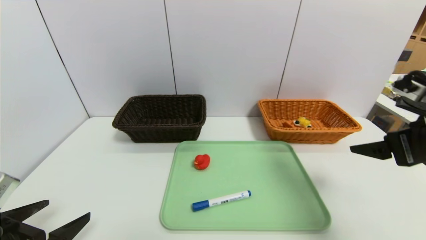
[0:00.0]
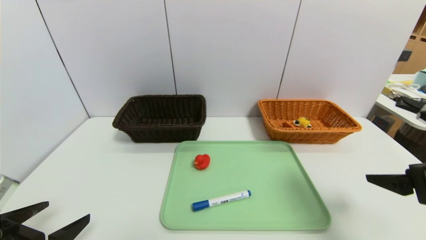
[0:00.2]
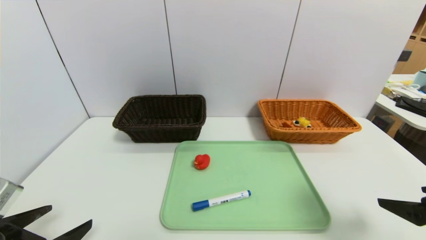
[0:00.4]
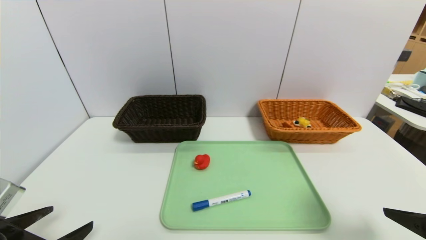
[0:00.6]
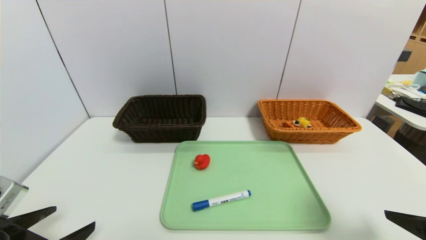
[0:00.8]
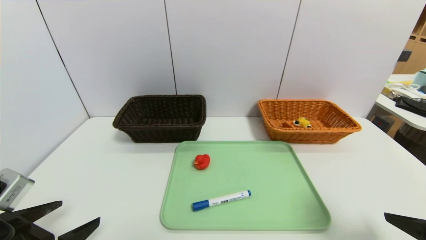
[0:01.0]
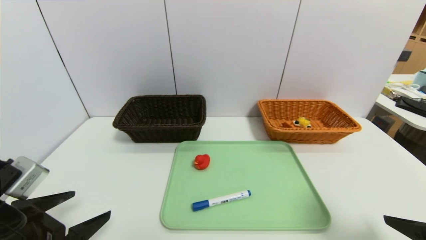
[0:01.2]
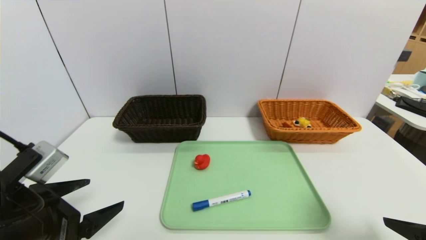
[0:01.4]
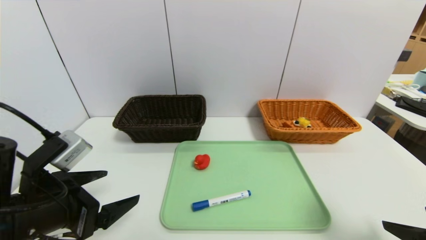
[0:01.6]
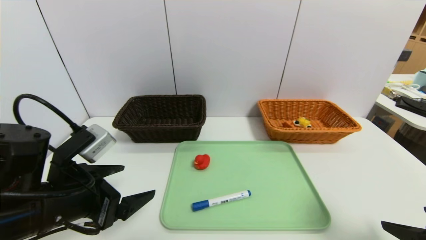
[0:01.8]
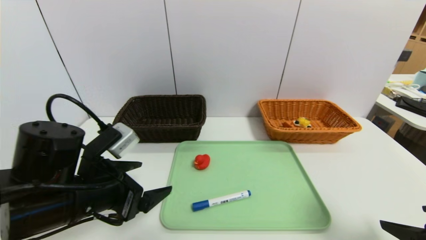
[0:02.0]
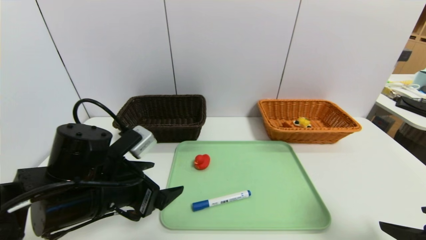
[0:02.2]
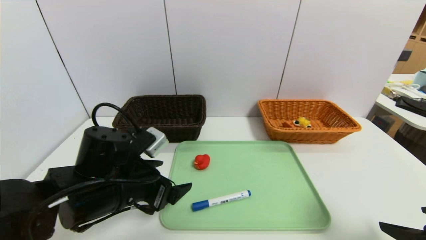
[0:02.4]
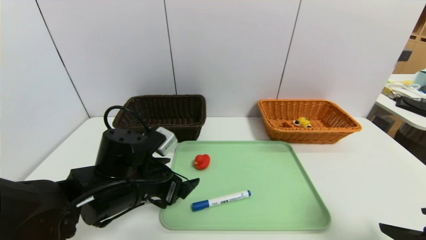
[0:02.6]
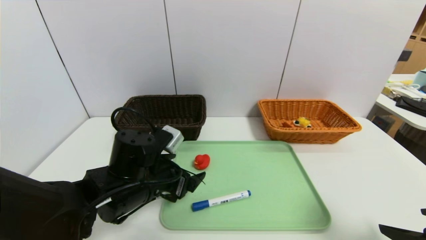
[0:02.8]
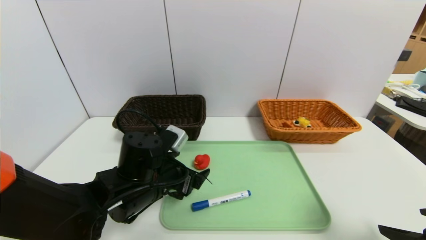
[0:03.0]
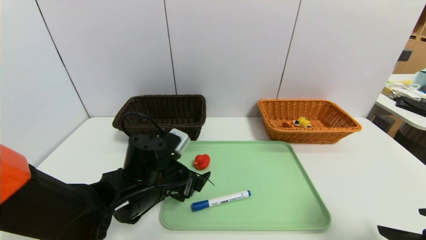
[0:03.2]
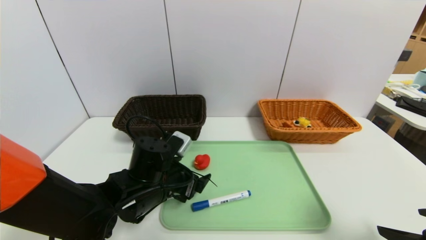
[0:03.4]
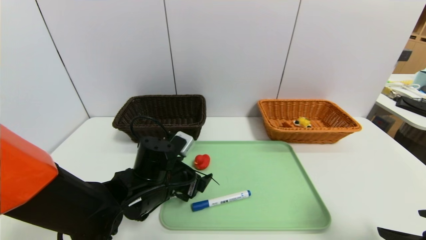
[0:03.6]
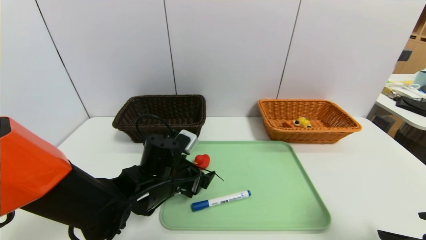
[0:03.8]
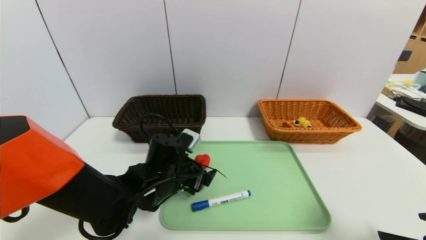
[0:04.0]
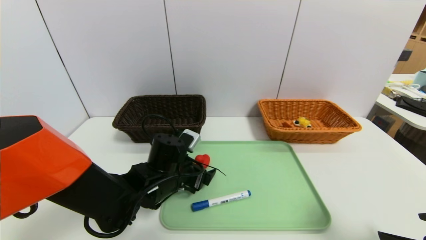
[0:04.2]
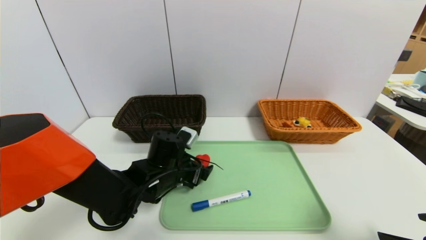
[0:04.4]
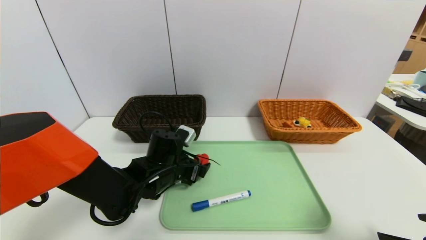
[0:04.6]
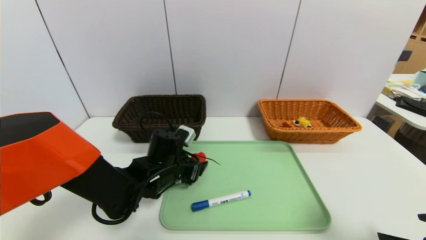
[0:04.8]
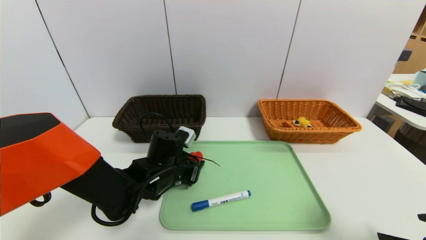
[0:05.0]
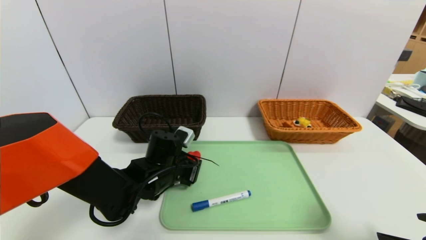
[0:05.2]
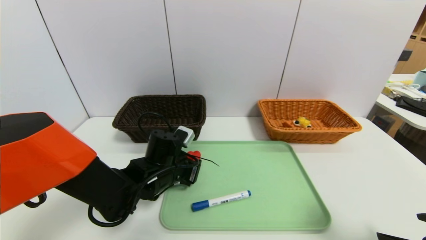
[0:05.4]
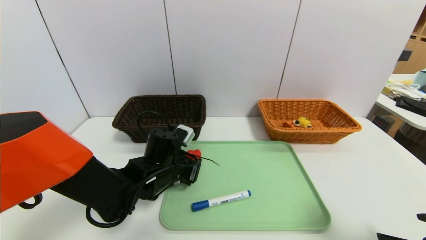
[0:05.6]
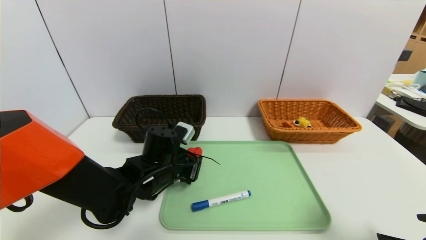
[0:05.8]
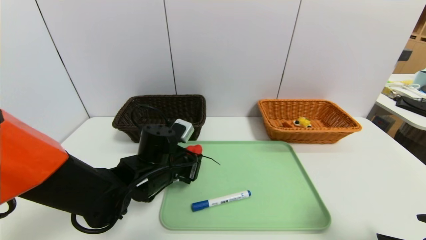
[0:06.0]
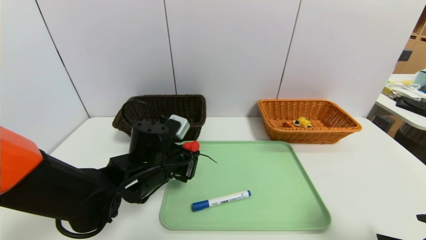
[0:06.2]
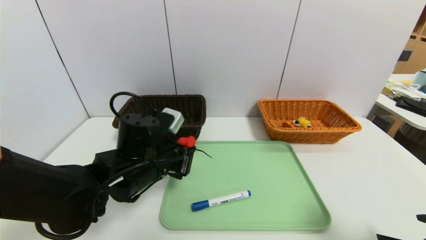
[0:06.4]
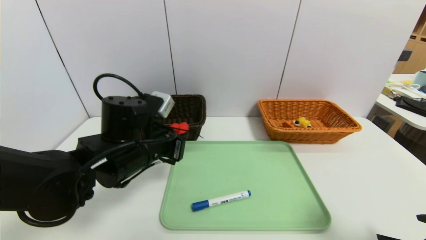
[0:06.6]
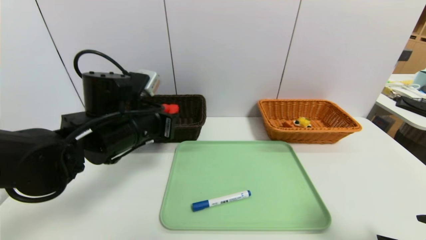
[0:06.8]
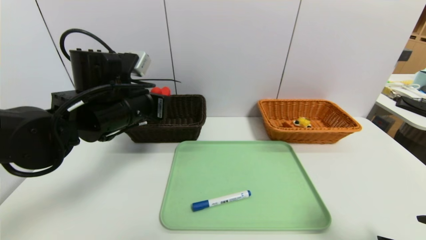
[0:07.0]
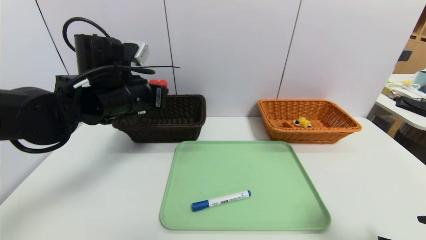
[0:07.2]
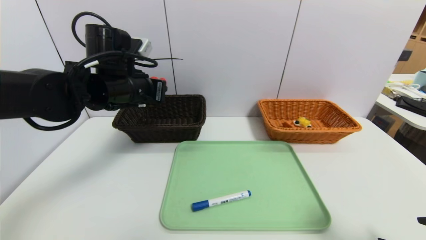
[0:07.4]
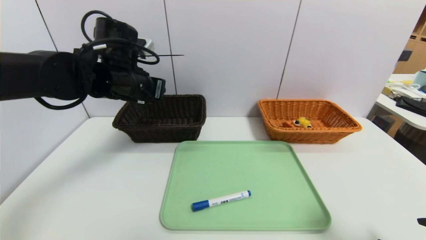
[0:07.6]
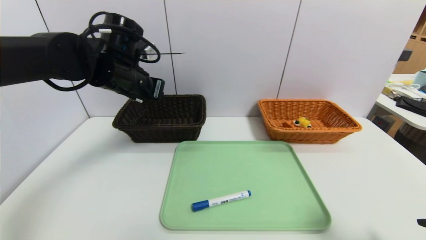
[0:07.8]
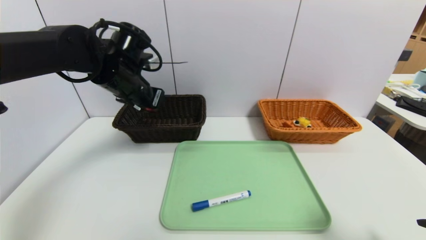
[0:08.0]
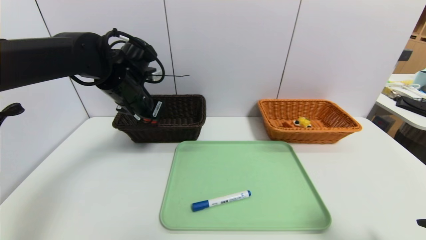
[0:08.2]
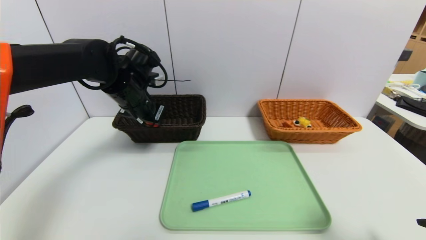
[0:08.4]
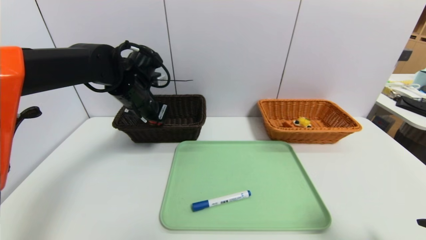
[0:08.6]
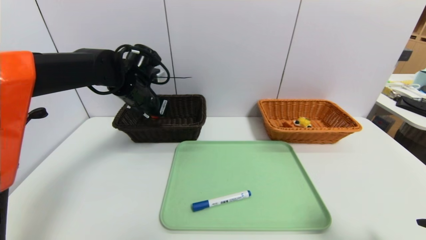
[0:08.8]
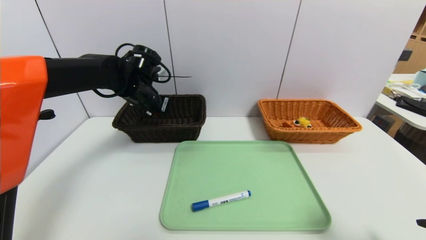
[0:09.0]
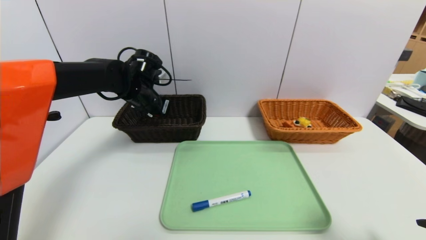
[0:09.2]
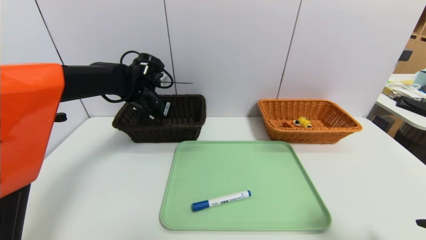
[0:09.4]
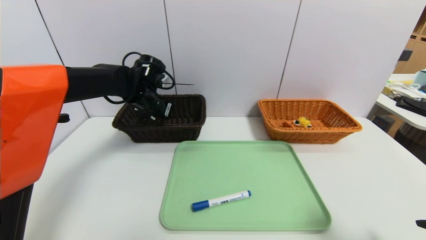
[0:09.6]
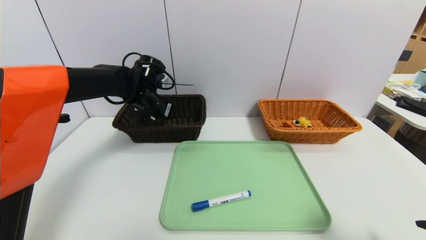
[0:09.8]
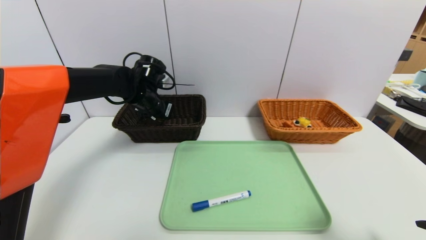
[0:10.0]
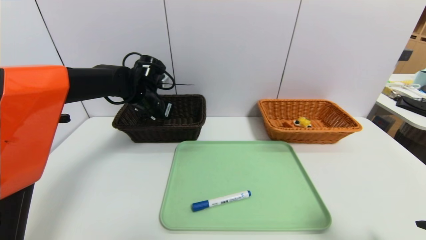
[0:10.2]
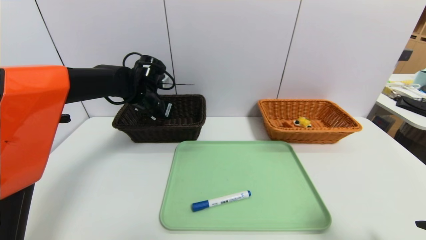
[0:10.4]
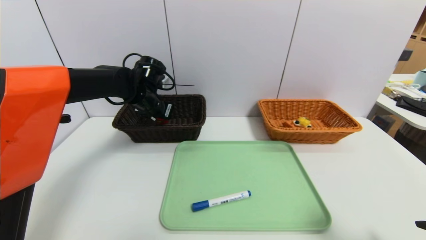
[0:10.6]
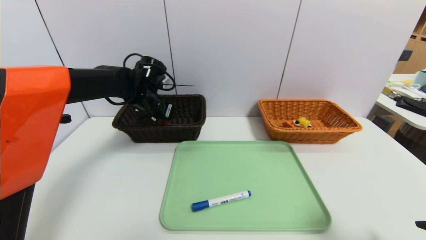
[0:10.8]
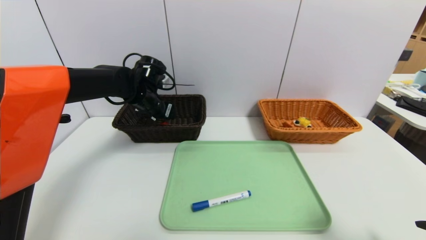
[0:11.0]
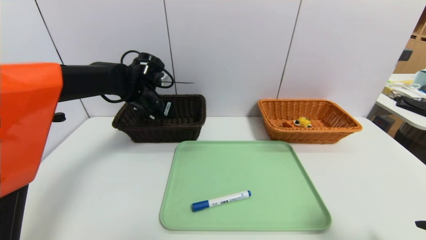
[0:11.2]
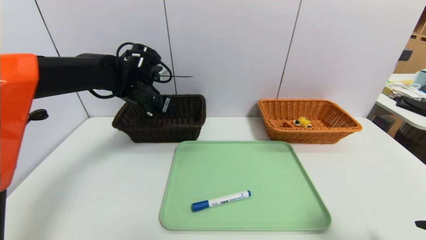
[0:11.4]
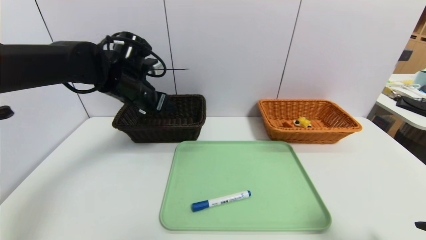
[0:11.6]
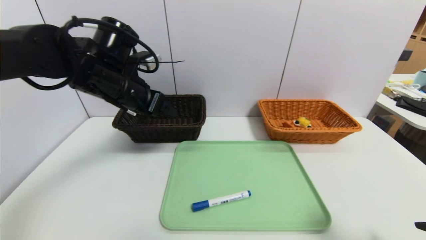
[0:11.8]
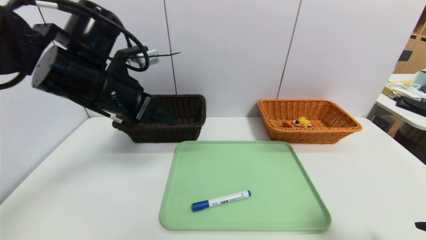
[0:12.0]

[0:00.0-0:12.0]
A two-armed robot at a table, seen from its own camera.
Task of the whole recording: place the food in the right basket with the right gripper, and place the non food items in the left basket with the left gripper.
Step, 0:00.0 to 0:11.2: Grasp the red duck and put it in the left basket.
0:00.0 to 0:01.6: The left gripper moves forward and to the right, roughly 10 cm, while the right gripper heads backward and downward, covering some 10 cm.
0:01.6 to 0:03.0: The left gripper travels to the right, forward and downward by some 15 cm.
0:03.0 to 0:04.4: The left gripper goes about 5 cm forward.
0:04.4 to 0:06.0: The left gripper closes up.
0:06.0 to 0:07.6: The left gripper goes roughly 20 cm upward, forward and to the left.
0:07.6 to 0:09.0: The left gripper shifts about 5 cm forward.
0:09.0 to 0:10.4: The grippers move only a little.
0:10.4 to 0:12.0: The left gripper travels backward and upward by some 20 cm, and opens its fingers.

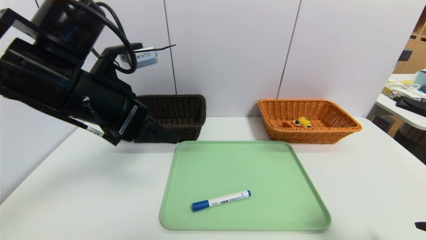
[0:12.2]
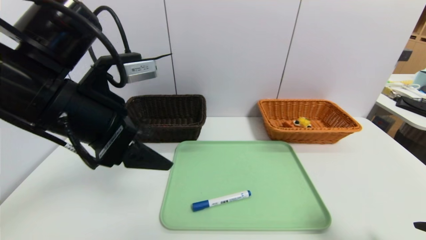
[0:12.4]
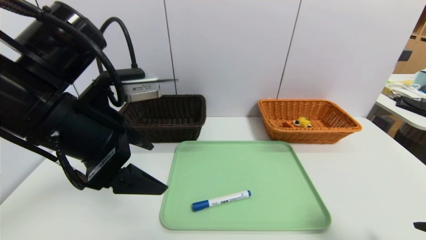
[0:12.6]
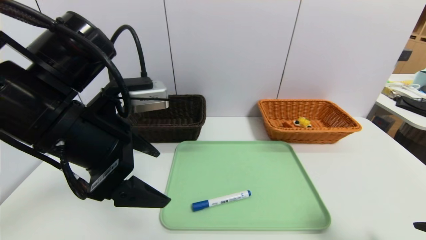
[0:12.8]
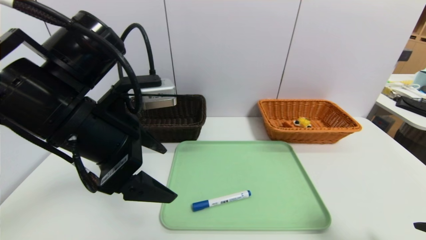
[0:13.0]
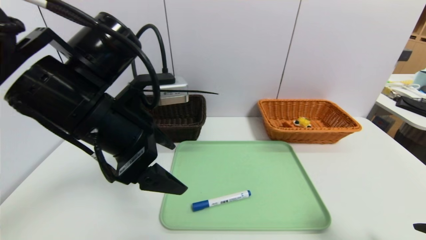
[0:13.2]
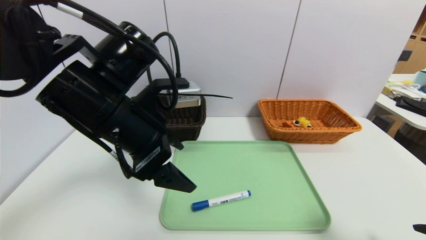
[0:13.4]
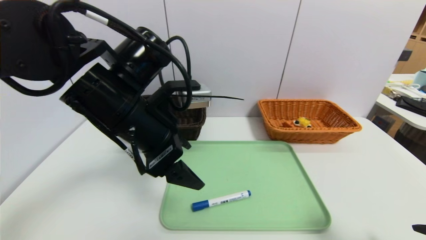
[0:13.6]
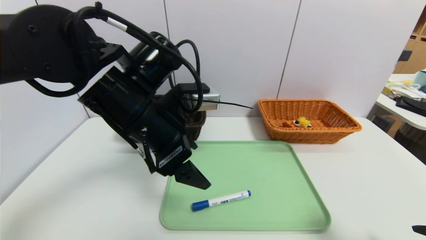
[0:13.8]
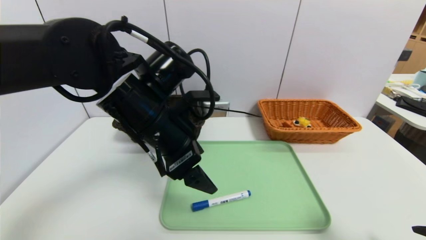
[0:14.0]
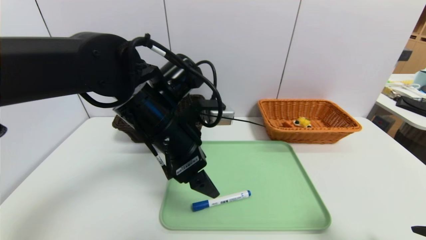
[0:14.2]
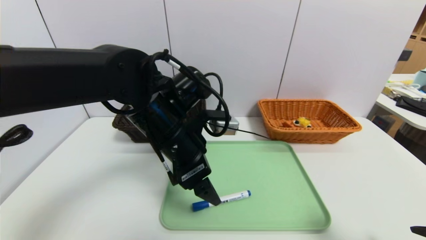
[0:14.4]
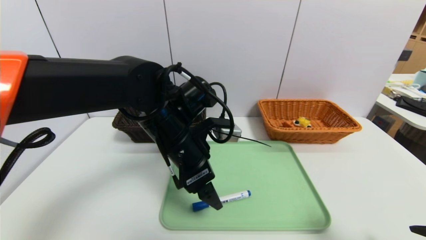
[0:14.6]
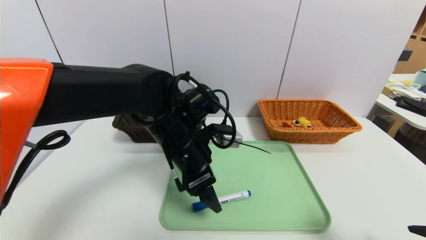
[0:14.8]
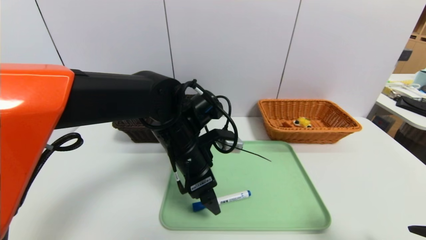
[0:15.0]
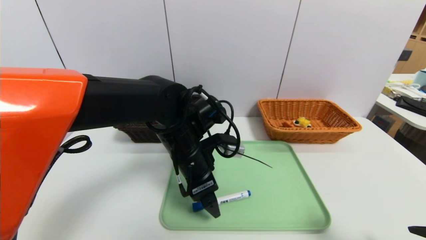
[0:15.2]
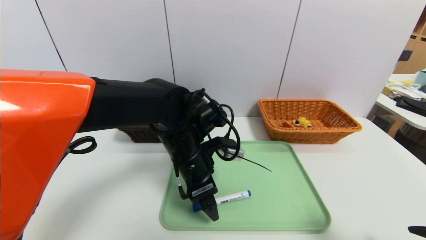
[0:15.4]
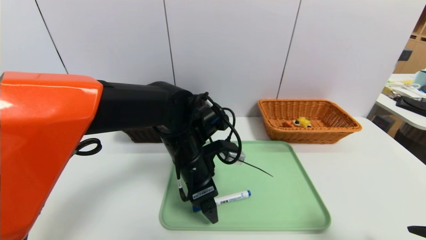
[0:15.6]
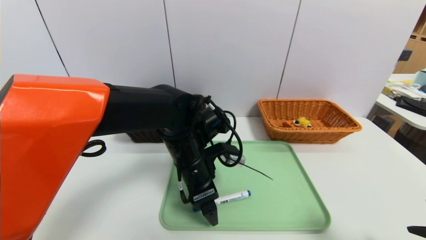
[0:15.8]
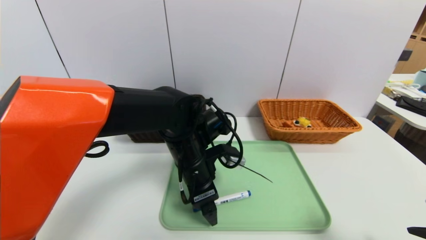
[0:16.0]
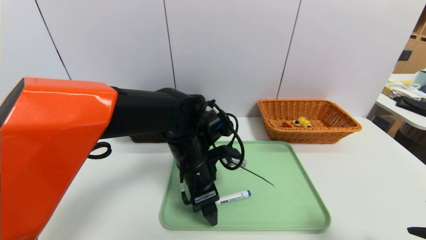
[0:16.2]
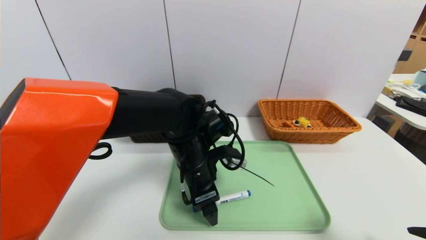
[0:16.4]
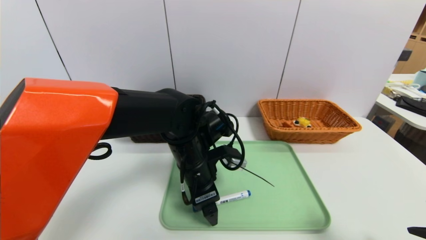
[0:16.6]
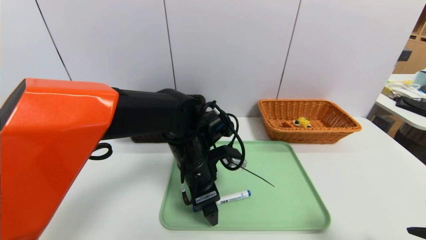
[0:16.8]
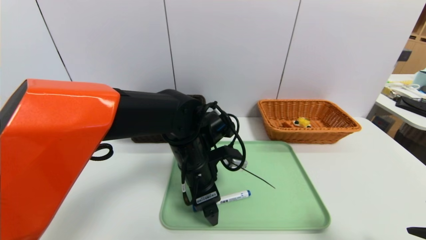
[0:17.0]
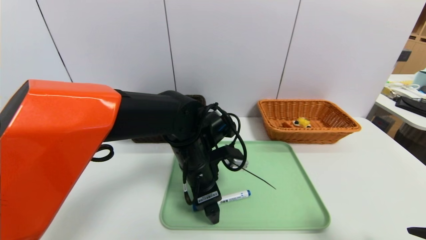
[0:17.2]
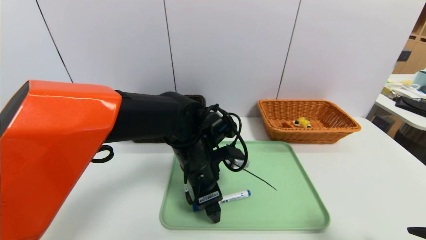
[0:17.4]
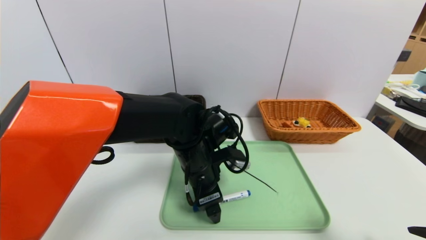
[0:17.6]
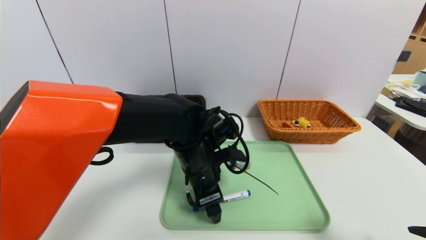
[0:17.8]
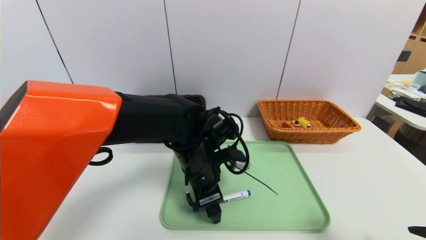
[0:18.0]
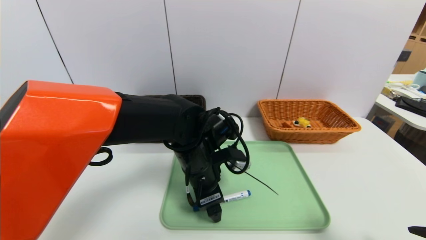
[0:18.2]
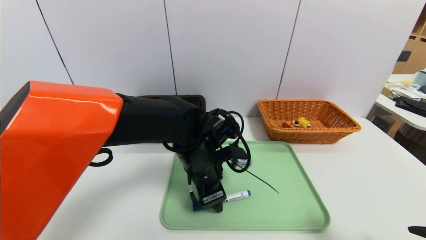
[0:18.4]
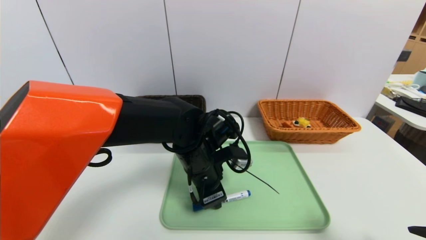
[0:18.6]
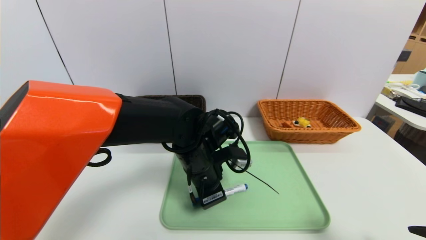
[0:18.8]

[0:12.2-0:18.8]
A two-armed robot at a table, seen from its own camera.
Task of the whole recording: place the food in the right basket with the right gripper, and place the non food items in the left basket with the left gripper.
0:12.2 to 0:13.8: The left gripper goes approximately 5 cm to the right.
0:13.8 to 0:15.4: The left gripper travels downward and to the right by approximately 10 cm.
0:15.4 to 0:17.2: The grippers stay close to where they were, moving slightly.
0:17.2 to 0:18.8: The left gripper closes its fingers.
